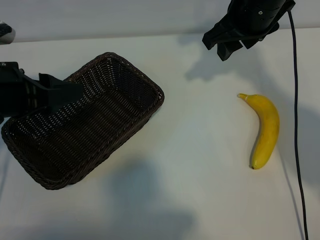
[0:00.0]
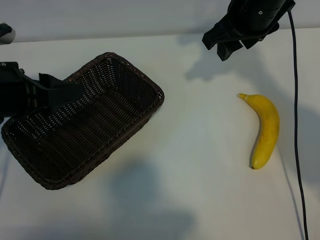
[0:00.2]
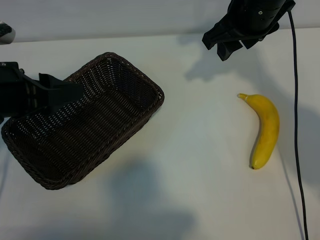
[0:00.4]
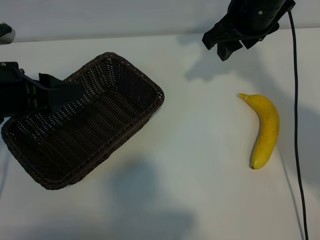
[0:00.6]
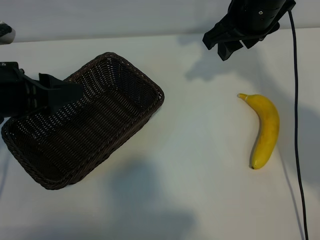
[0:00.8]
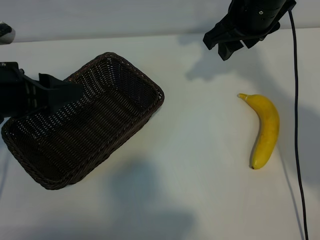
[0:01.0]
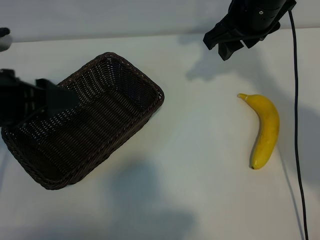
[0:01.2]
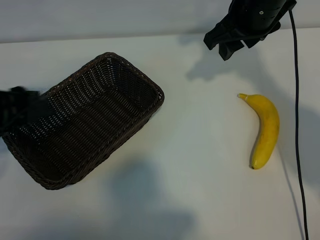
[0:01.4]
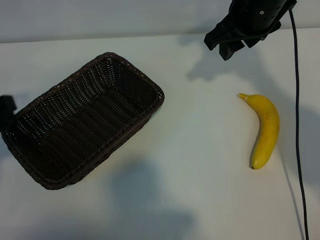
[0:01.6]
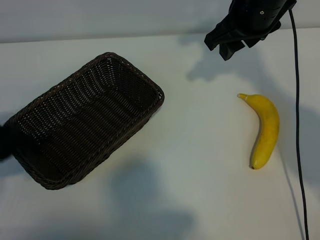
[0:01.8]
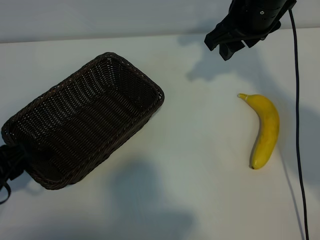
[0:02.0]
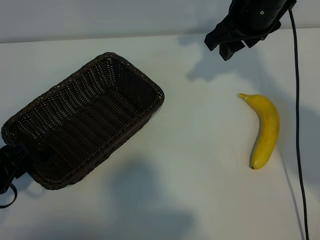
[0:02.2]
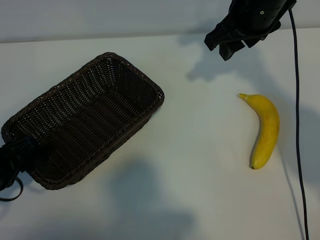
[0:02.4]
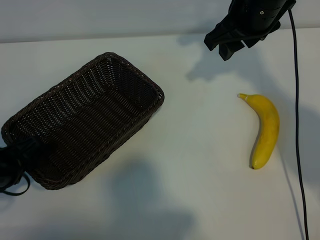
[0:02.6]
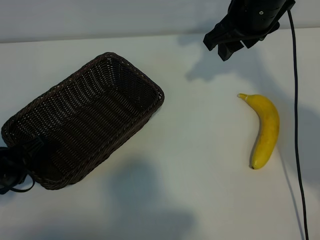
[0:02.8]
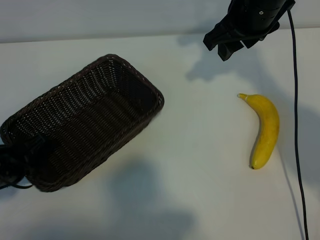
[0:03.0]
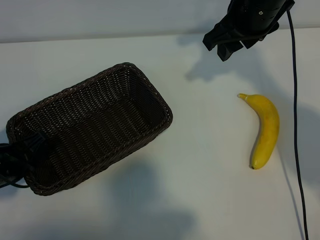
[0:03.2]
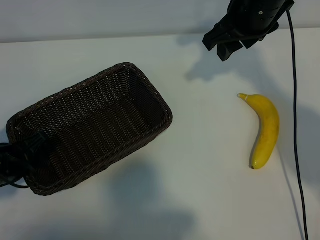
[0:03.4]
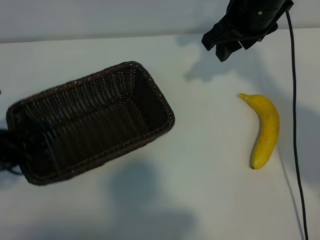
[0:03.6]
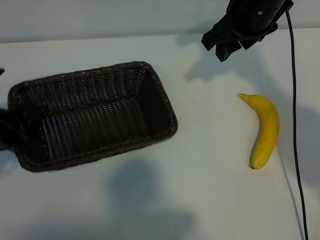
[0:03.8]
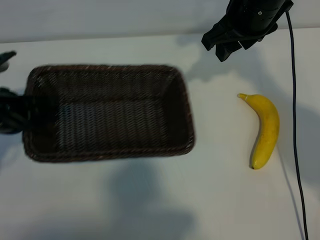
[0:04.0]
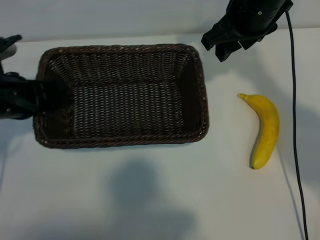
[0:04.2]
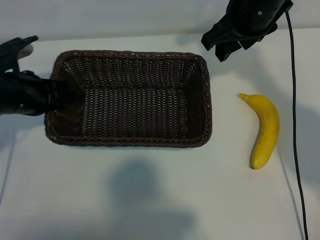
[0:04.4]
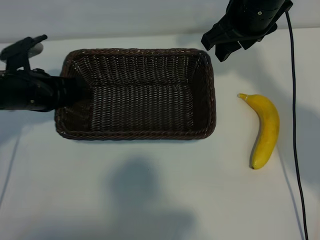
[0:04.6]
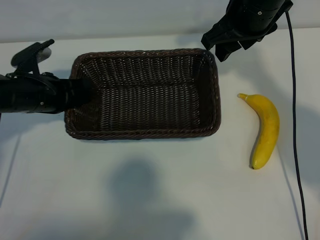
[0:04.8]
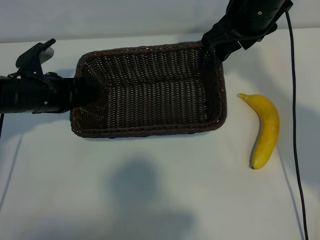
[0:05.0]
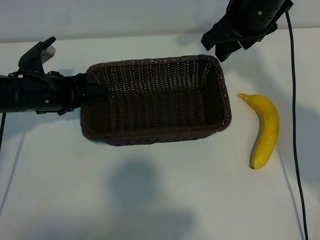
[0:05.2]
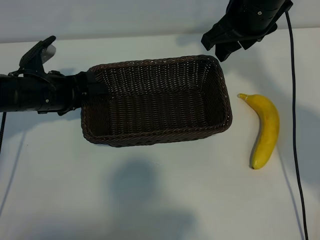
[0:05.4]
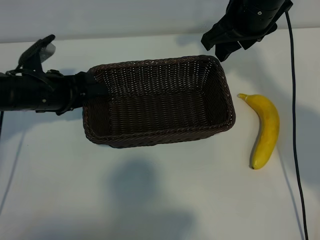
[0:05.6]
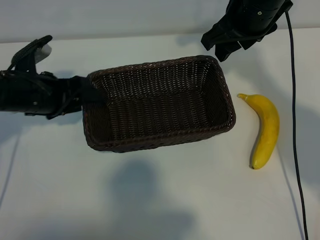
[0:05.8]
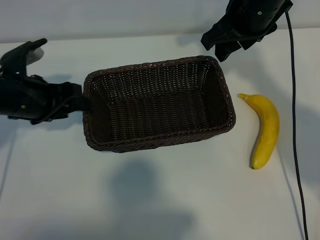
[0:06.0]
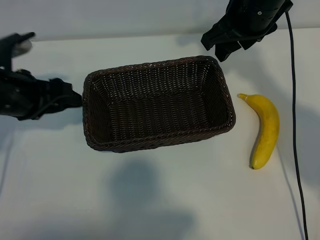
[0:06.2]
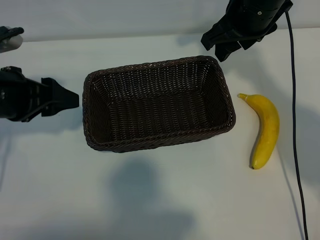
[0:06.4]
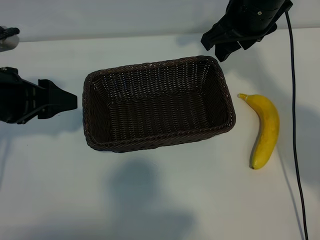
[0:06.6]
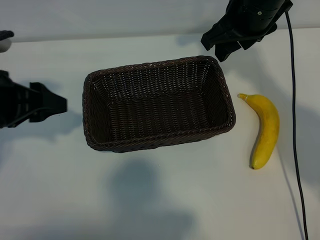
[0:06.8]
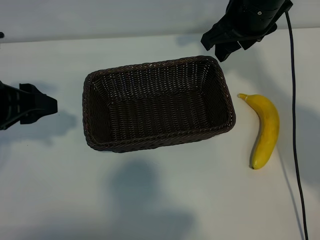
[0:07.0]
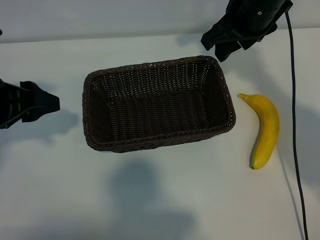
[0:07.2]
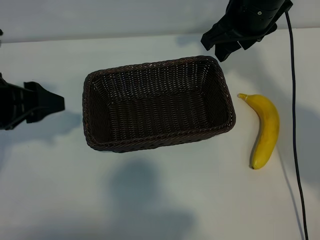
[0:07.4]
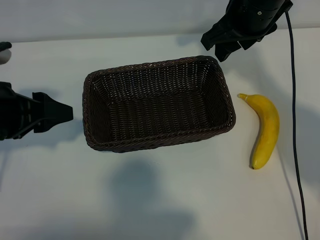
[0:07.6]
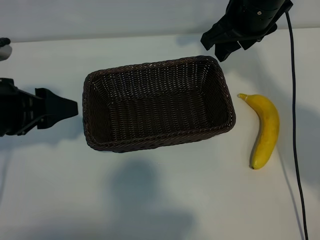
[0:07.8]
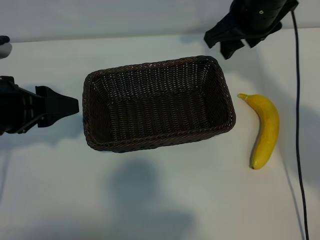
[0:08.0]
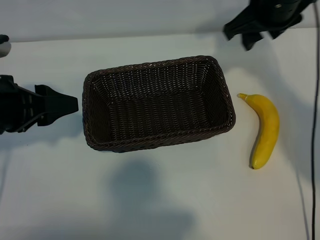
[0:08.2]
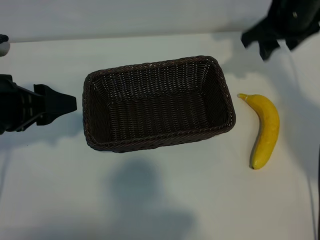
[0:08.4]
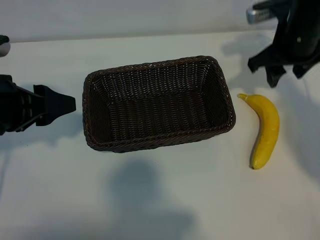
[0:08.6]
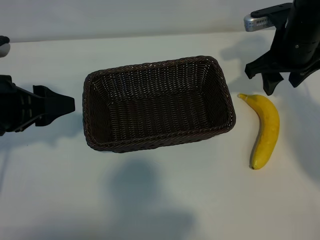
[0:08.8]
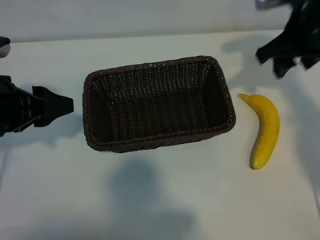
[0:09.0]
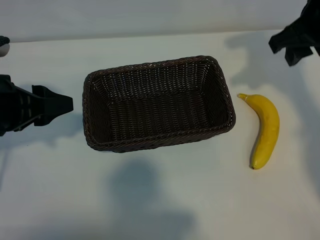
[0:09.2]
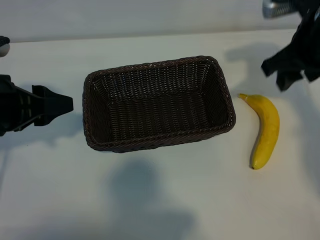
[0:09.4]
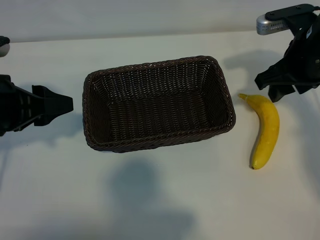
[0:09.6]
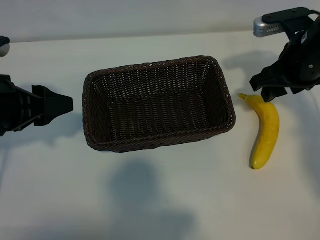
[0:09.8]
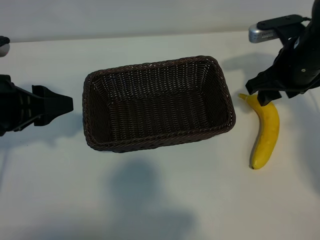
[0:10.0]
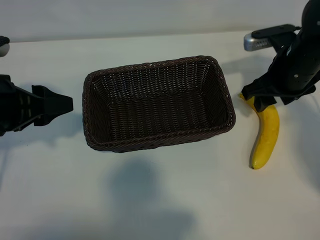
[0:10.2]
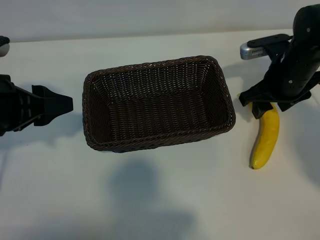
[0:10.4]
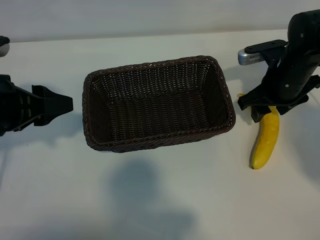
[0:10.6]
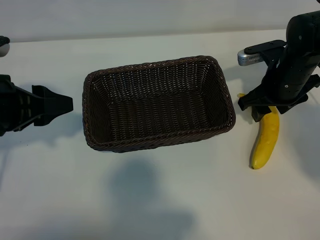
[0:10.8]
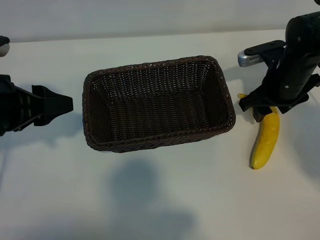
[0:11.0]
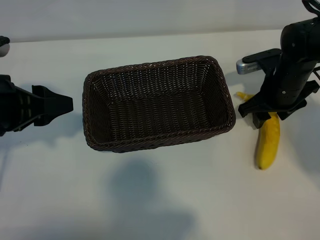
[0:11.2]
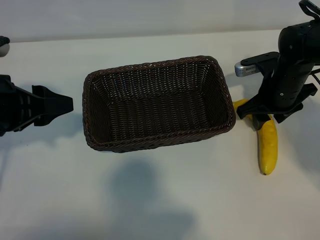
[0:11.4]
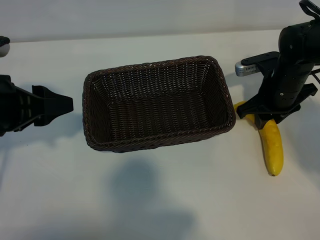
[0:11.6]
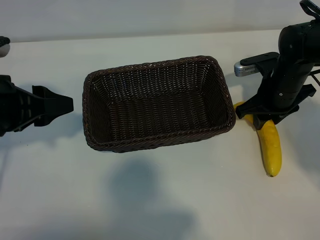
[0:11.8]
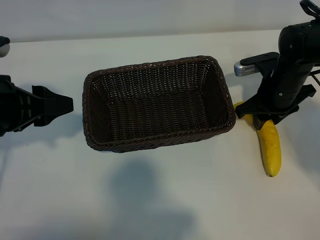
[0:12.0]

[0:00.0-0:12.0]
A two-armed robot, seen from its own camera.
Task of the whole recording: pick up the banana and put it into the basket.
Step, 0:00.8 to 0:03.2: Grasp the basket with the left gripper.
Step, 0:03.6 to 0:06.2: Place the basket in the center of the table with the left gripper.
Step, 0:06.4 to 0:11.6: Grasp the banana with right gripper.

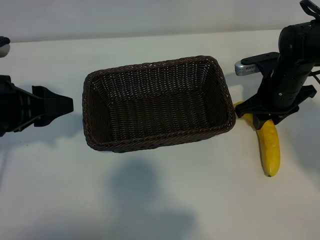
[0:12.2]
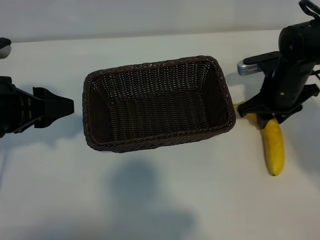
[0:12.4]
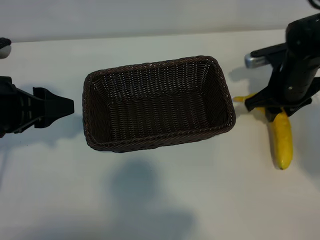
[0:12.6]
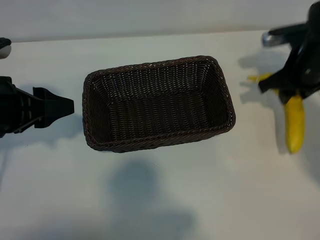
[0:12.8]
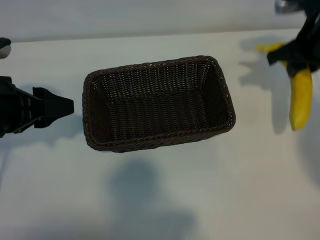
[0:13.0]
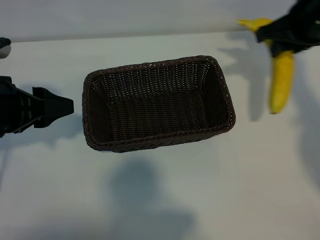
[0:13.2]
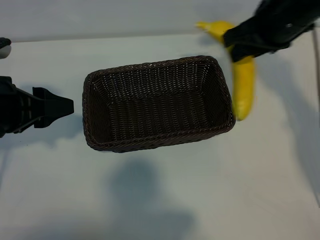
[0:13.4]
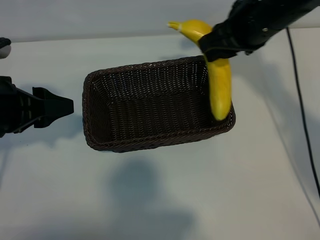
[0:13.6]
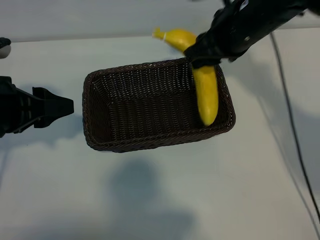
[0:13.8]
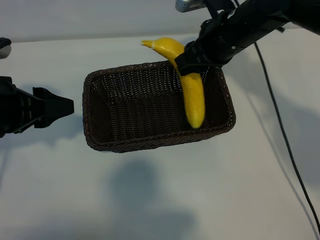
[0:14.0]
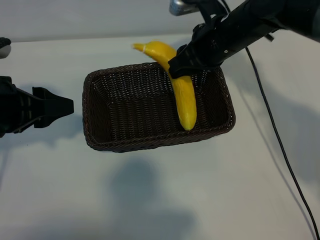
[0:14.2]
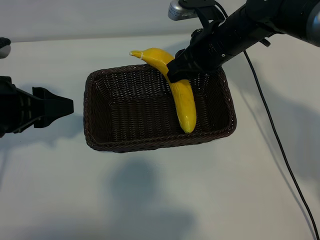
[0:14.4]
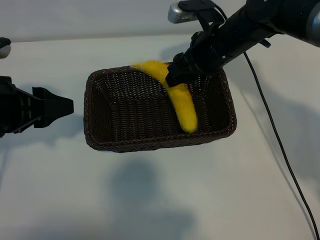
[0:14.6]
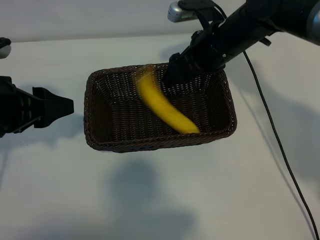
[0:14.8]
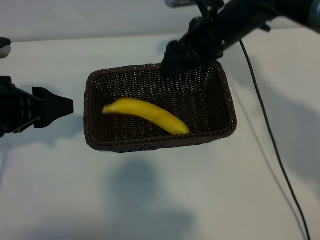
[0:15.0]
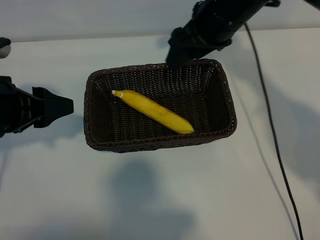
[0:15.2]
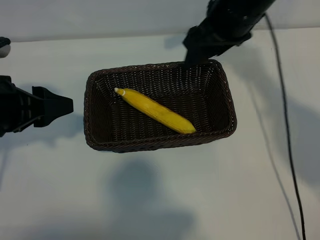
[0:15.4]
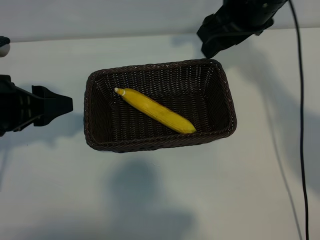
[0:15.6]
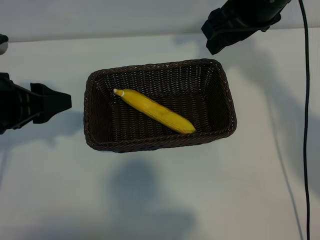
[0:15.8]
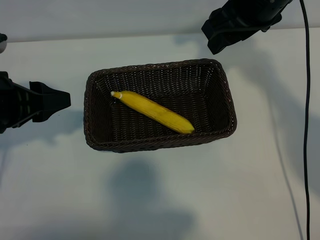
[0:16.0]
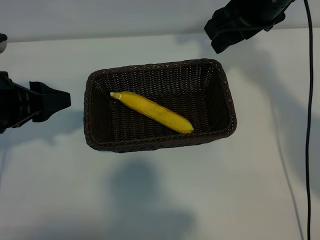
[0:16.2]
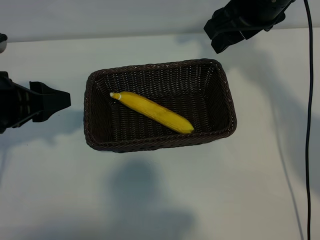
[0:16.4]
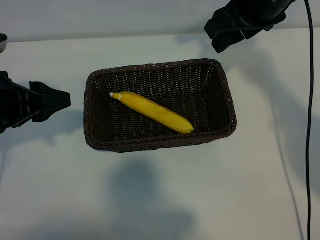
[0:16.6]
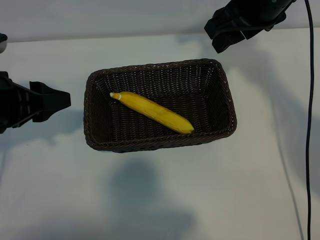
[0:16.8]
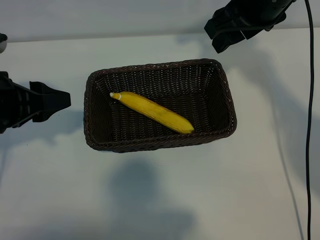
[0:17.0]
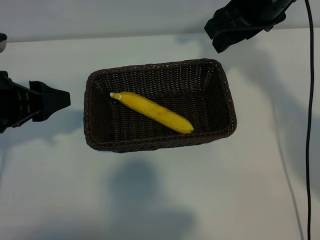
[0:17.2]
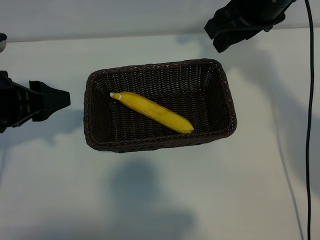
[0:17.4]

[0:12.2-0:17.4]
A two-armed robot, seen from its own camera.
Task of the whole recording: pick up the banana and put it into the basket.
Step, 0:12.2 to 0:14.8: Place the banana in the basket with right gripper.
